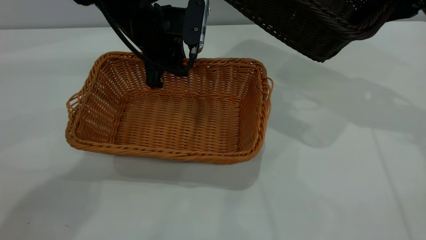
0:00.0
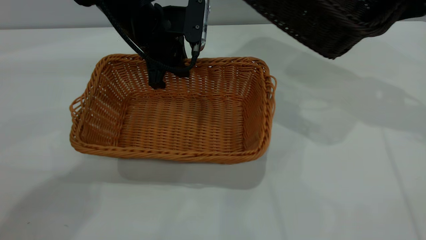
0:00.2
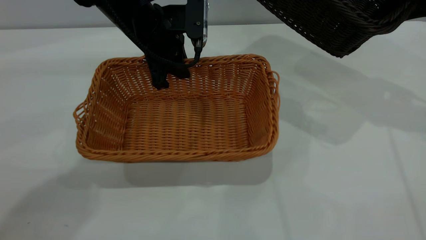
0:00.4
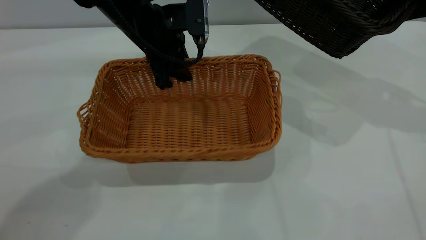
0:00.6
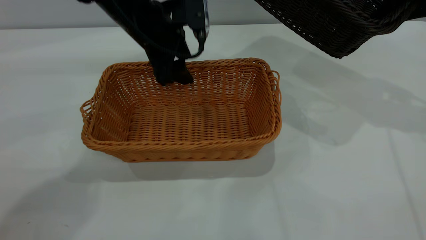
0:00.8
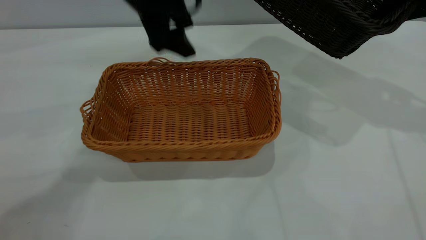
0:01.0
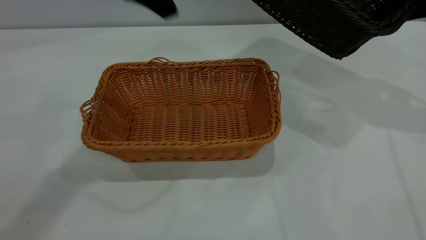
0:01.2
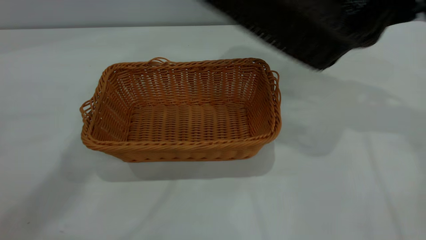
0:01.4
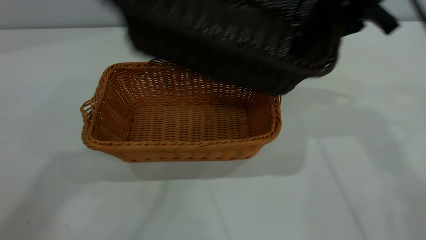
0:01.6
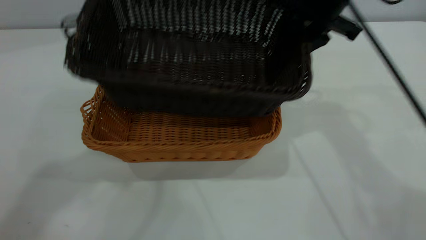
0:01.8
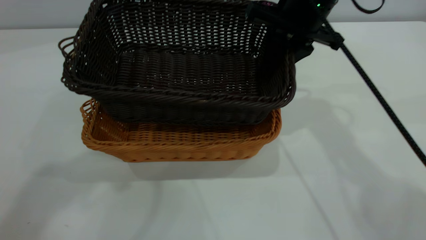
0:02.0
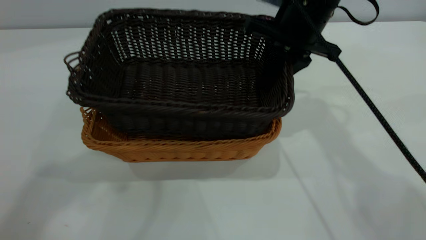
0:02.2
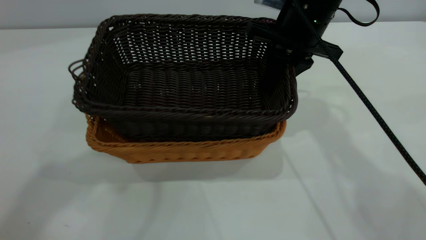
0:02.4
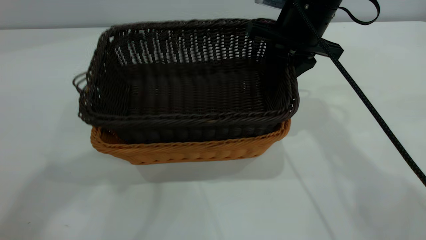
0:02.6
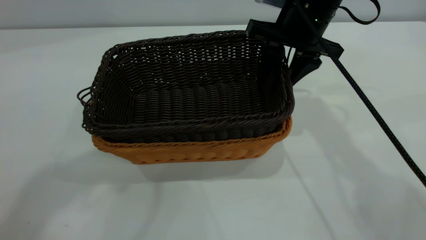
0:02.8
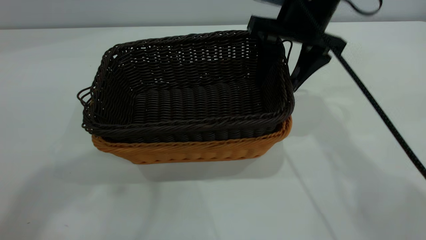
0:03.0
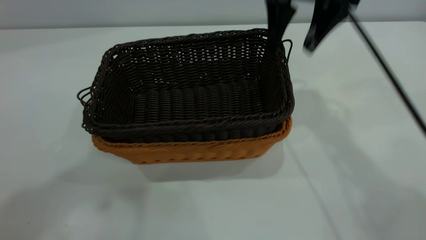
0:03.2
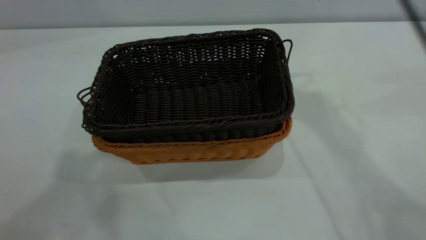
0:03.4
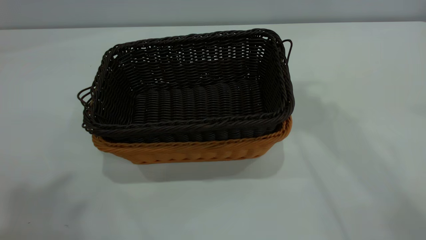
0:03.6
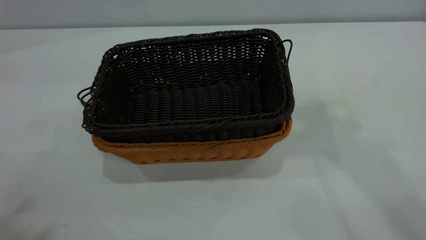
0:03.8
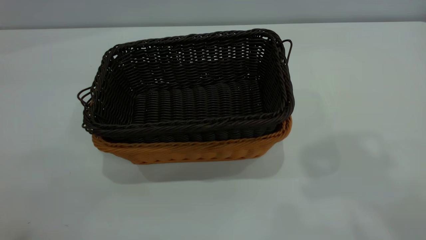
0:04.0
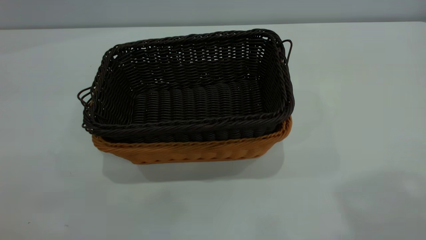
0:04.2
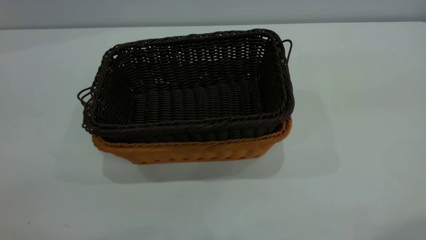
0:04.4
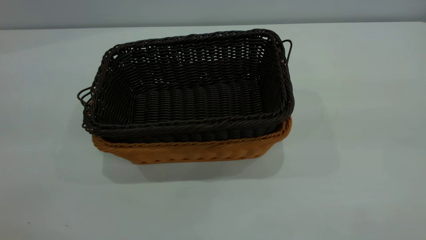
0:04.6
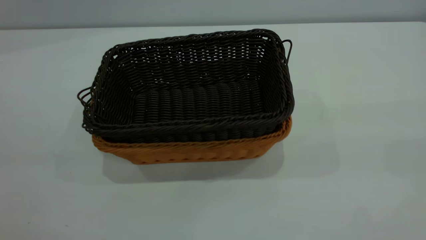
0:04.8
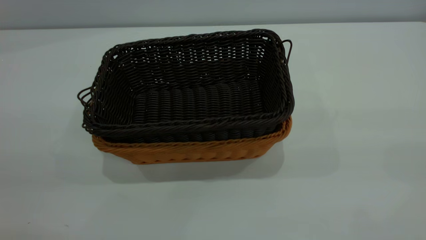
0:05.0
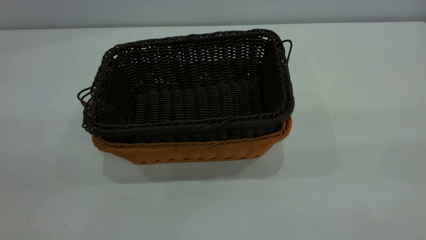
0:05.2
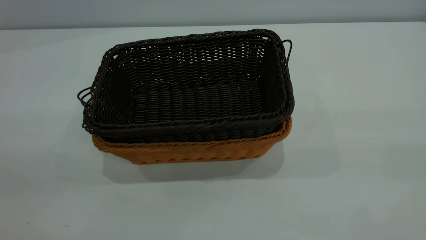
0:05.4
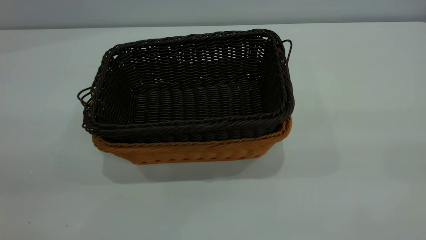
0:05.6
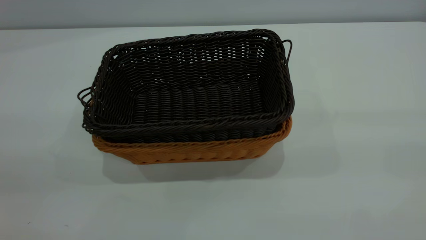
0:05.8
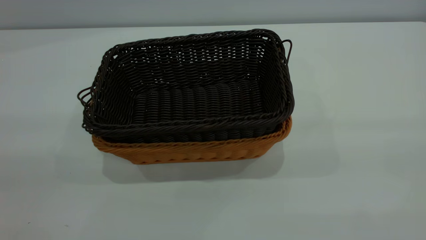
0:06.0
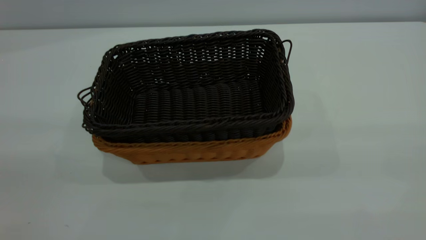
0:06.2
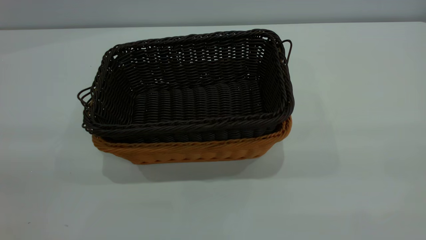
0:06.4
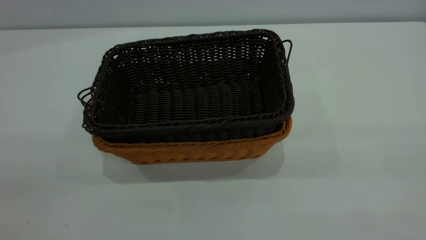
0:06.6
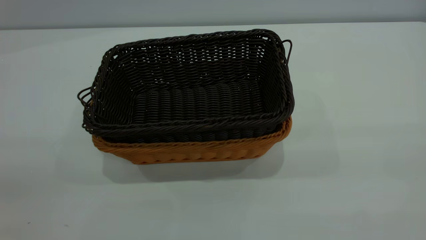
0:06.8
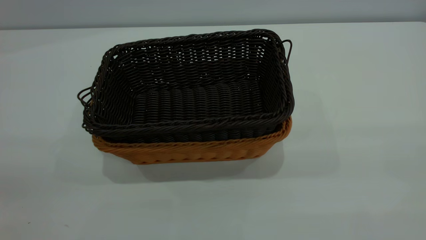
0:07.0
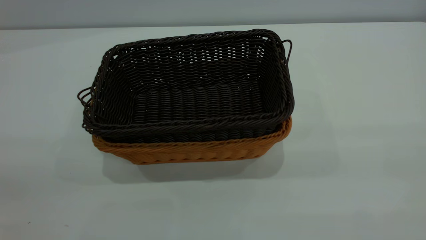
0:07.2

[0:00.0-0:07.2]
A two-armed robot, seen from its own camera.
Task of the whole recording: the left gripper grasp the brown basket and place it in the center of the table, the right gripper grasp the black basket and place it inside the brown one.
Step, 0:00.0 to 0:01.0: Place the light-colored basket in the center.
Step, 0:01.2 to 0:03.0: Place the dark basket on top of the light basket.
0:00.0 to 0:01.4: The left gripper shifts approximately 25 cm upward, and opens up.
0:01.4 to 0:02.8: The right gripper travels to the left and downward by approximately 15 cm, and opens its fingers. The left gripper travels upward by about 5 cm.
0:02.8 to 0:04.4: The left gripper shifts roughly 25 cm backward and to the left; the right gripper is displaced backward, upward and to the right by approximately 40 cm.
